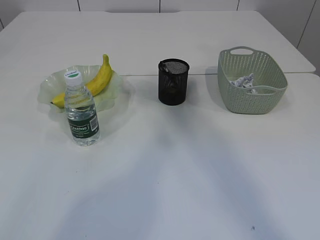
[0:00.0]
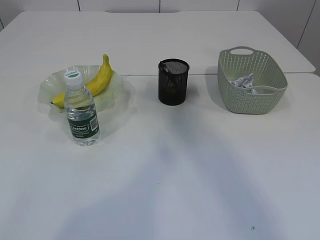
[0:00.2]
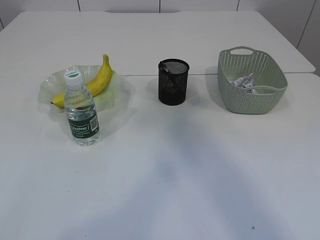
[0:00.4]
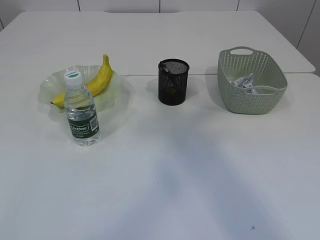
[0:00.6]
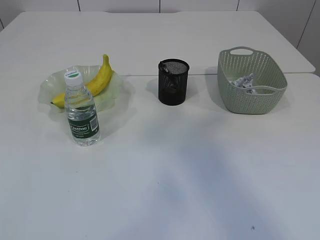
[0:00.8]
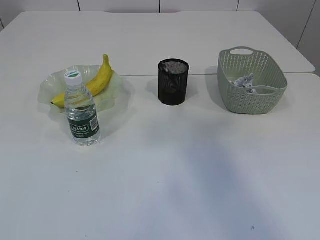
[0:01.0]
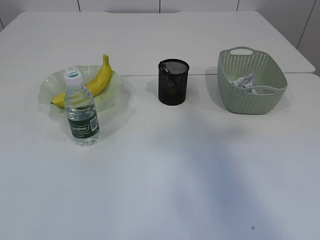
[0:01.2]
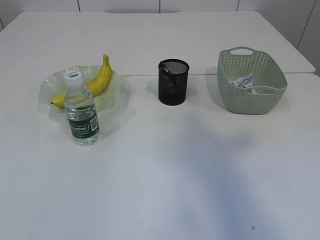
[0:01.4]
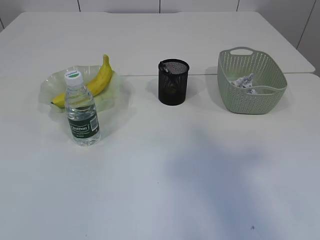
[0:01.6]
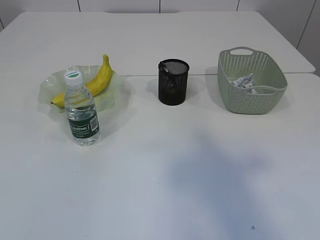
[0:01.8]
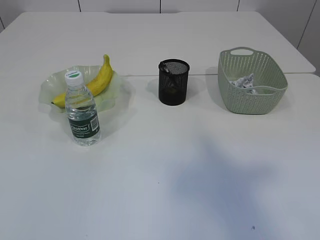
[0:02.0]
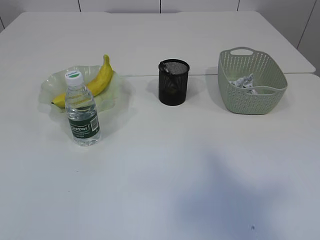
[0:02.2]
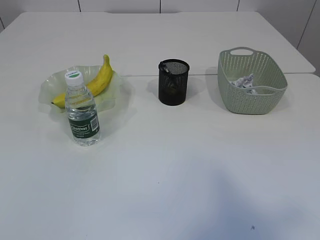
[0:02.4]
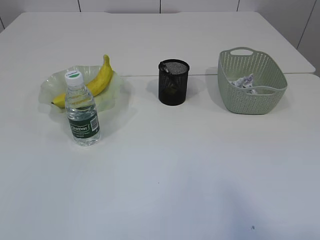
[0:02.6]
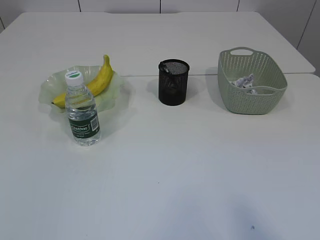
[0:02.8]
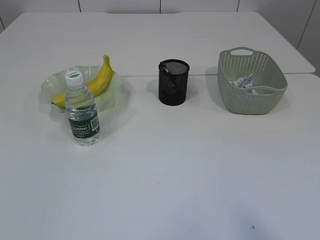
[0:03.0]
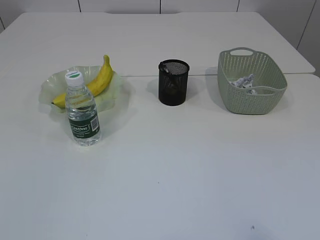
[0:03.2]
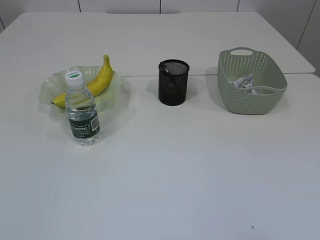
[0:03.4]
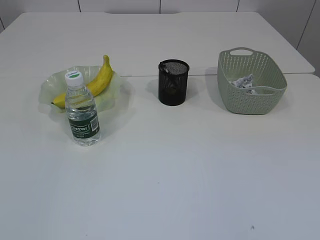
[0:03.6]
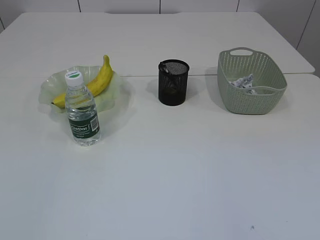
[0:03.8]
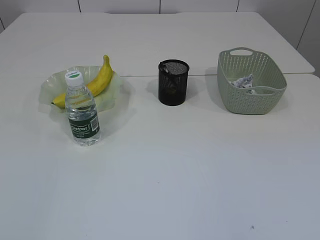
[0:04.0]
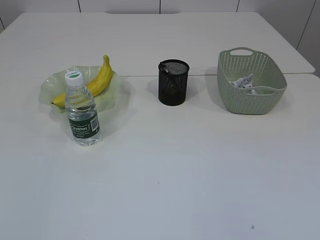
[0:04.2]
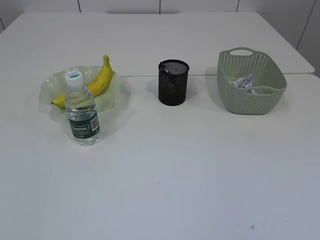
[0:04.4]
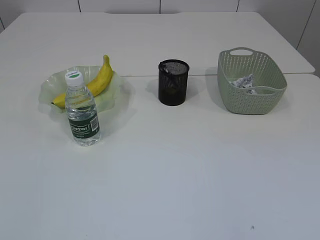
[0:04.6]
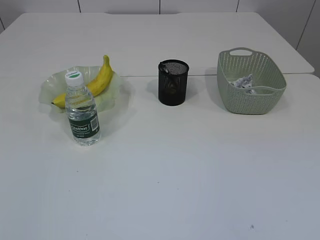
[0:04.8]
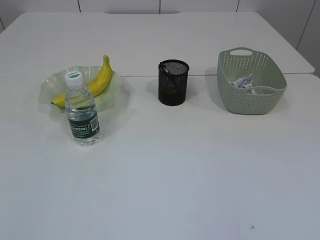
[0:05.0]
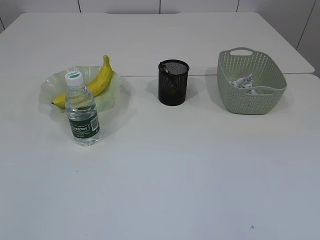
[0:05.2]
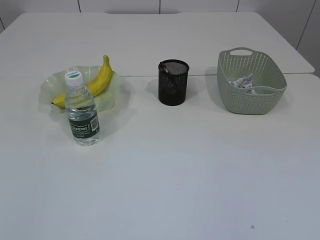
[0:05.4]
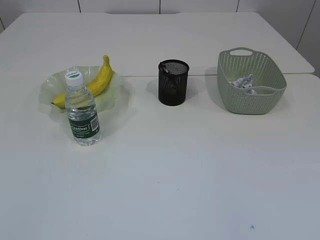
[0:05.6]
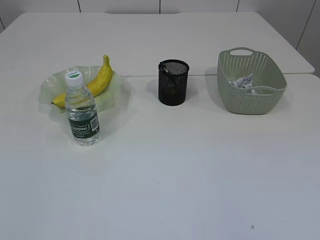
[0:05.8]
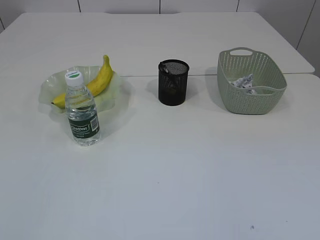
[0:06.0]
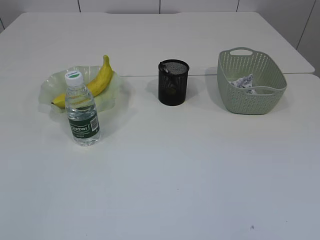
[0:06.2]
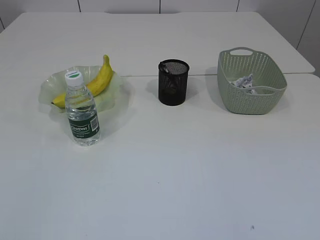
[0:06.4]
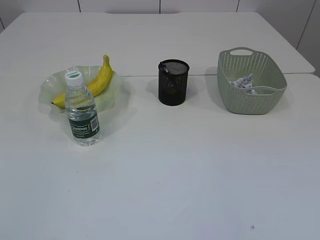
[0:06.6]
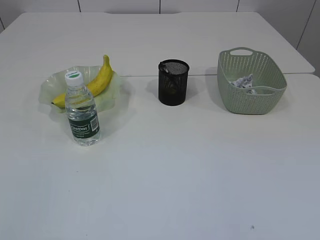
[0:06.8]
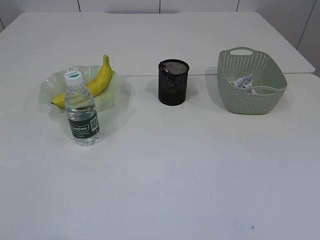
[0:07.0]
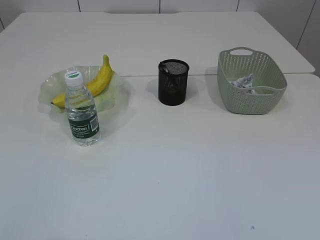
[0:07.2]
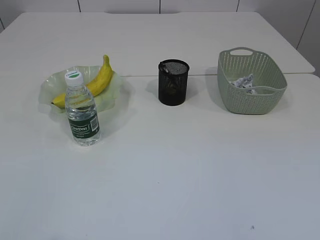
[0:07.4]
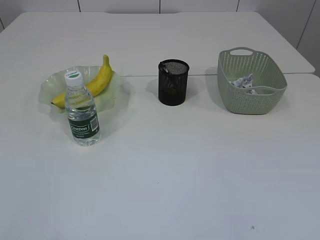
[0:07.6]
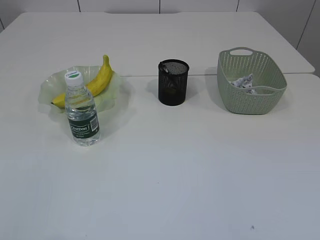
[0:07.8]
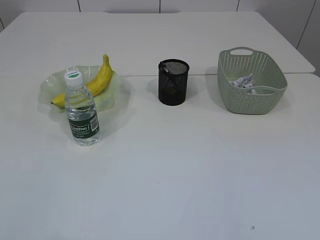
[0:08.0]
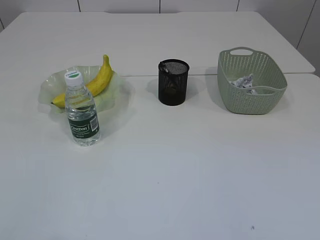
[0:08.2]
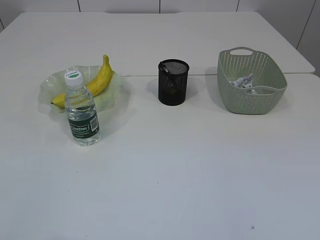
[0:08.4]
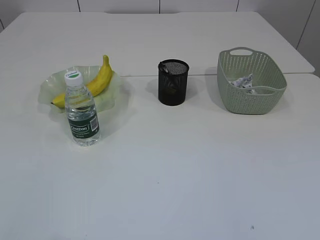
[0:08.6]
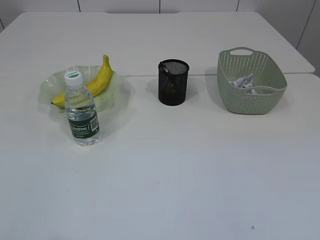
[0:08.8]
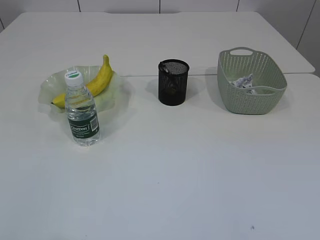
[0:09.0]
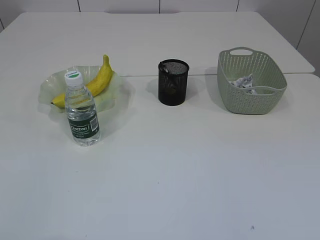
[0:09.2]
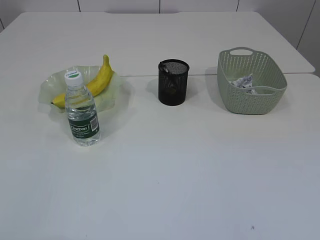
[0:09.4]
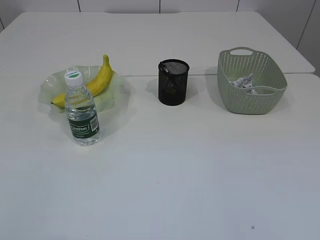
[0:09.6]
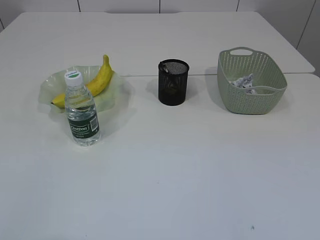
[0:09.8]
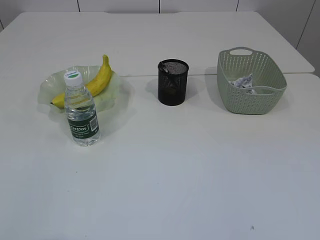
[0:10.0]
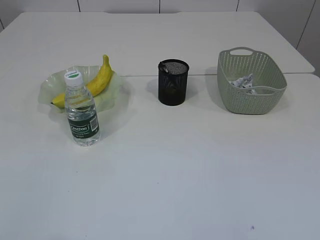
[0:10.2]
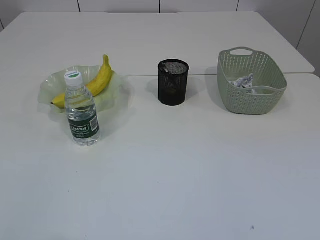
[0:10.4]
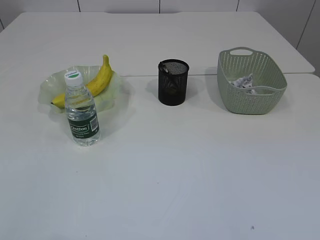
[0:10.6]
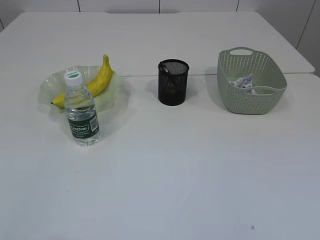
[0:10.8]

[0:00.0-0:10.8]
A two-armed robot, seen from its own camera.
0:00.0 to 0:01.6: The right gripper heads backward, covering roughly 20 cm. The left gripper travels backward by about 30 cm.
0:01.6 to 0:03.0: The two grippers go some 15 cm backward.
0:09.2 to 0:10.8: The two grippers keep their place.
